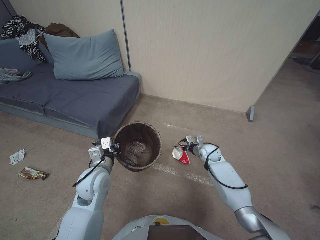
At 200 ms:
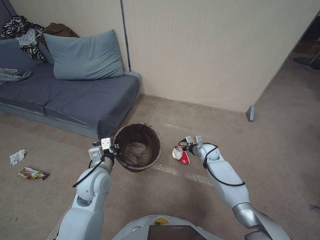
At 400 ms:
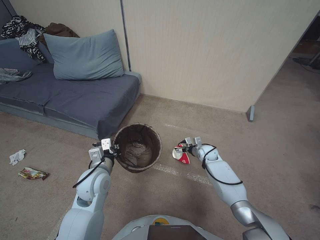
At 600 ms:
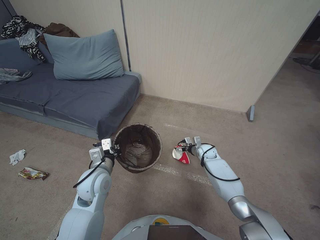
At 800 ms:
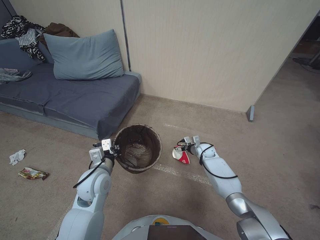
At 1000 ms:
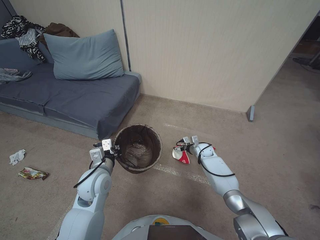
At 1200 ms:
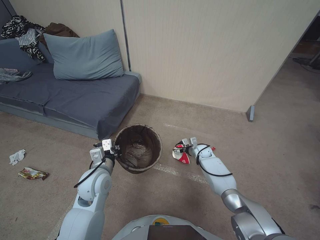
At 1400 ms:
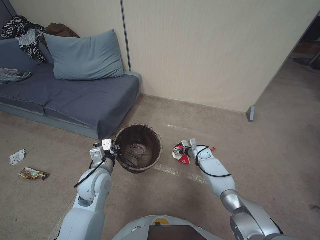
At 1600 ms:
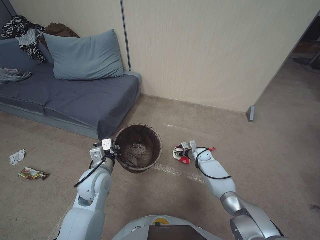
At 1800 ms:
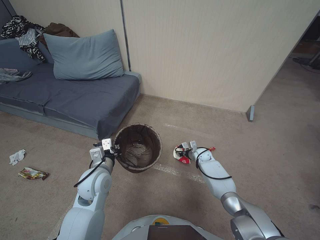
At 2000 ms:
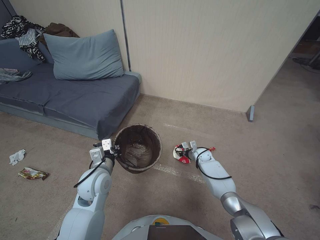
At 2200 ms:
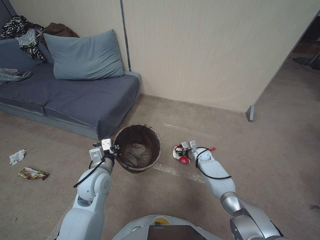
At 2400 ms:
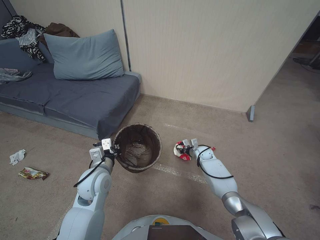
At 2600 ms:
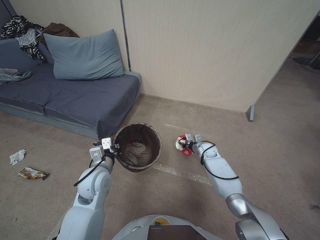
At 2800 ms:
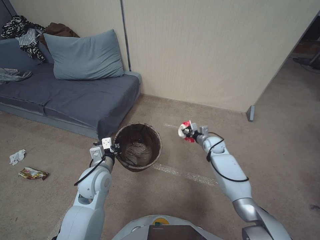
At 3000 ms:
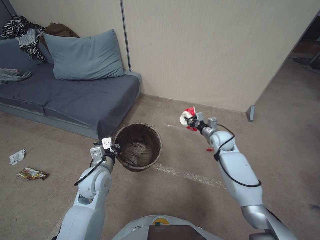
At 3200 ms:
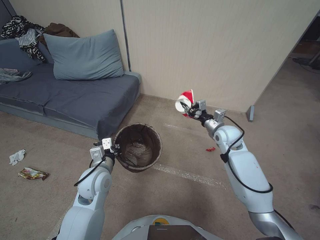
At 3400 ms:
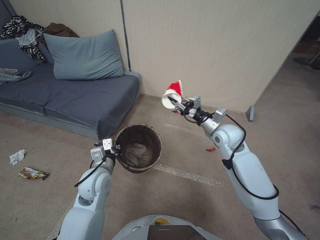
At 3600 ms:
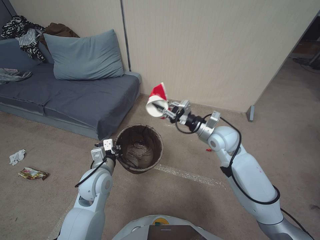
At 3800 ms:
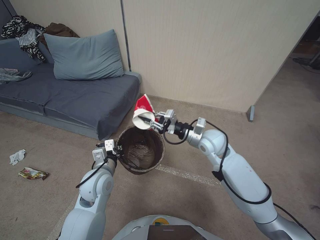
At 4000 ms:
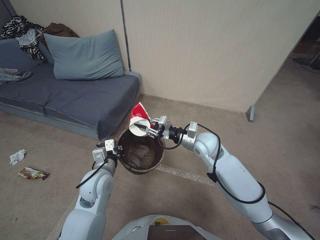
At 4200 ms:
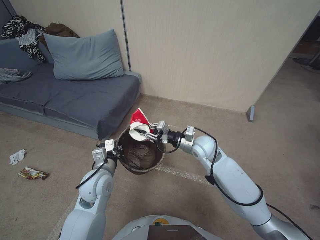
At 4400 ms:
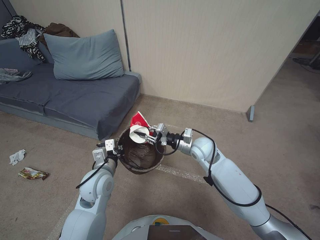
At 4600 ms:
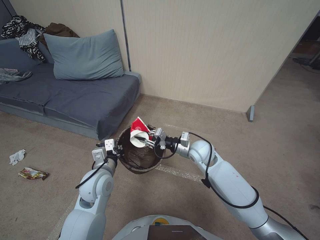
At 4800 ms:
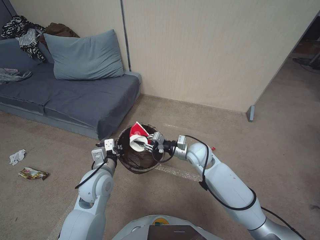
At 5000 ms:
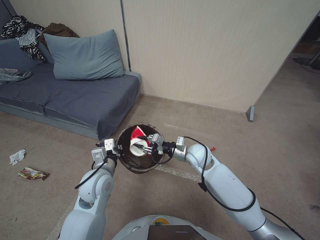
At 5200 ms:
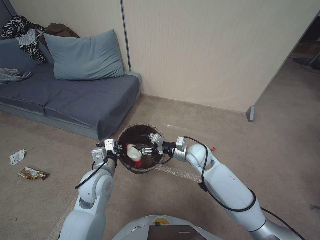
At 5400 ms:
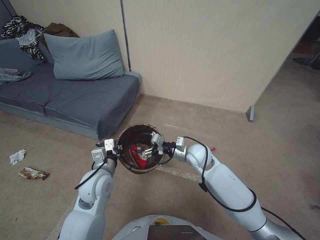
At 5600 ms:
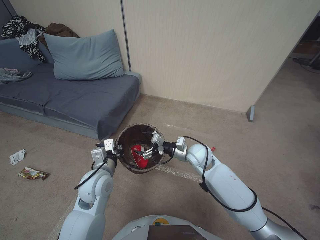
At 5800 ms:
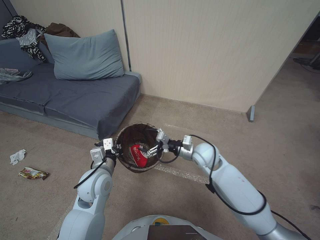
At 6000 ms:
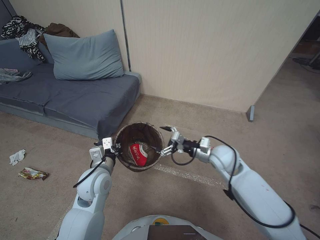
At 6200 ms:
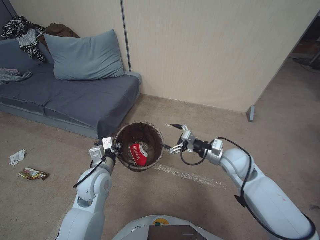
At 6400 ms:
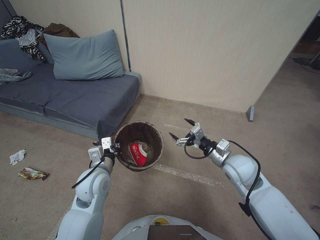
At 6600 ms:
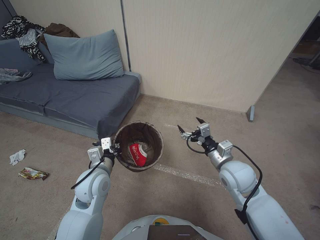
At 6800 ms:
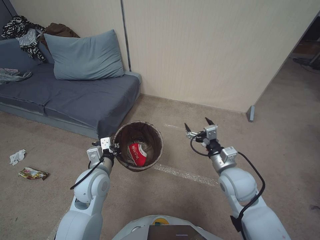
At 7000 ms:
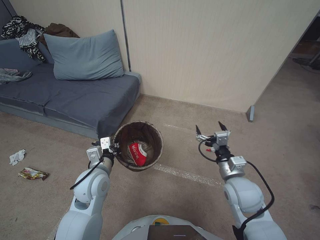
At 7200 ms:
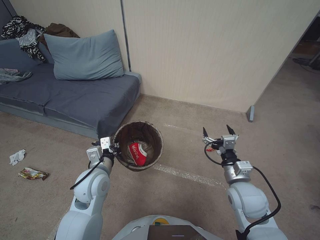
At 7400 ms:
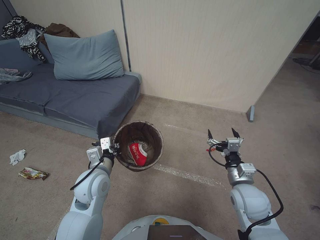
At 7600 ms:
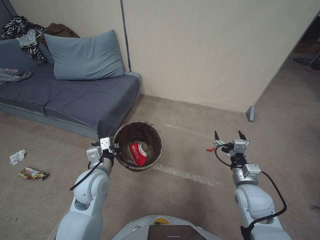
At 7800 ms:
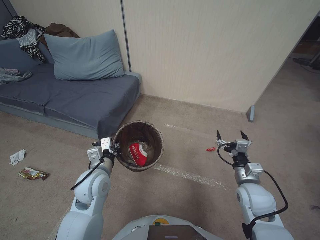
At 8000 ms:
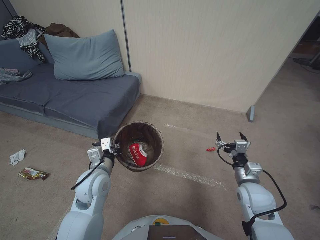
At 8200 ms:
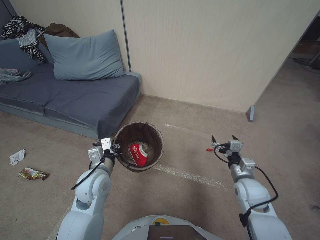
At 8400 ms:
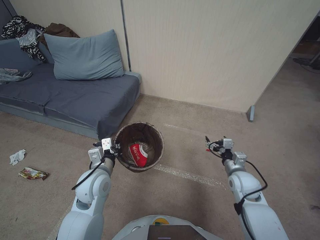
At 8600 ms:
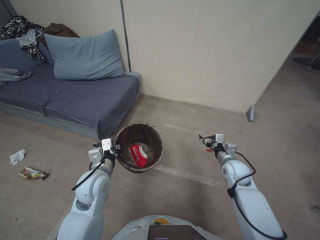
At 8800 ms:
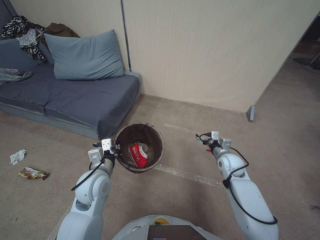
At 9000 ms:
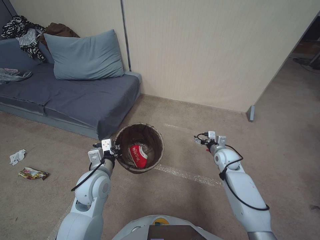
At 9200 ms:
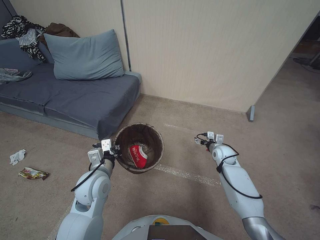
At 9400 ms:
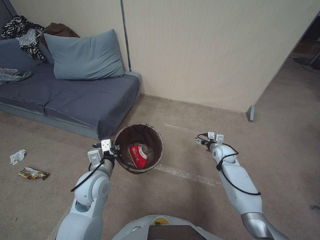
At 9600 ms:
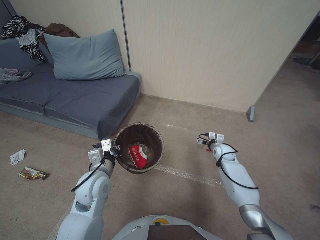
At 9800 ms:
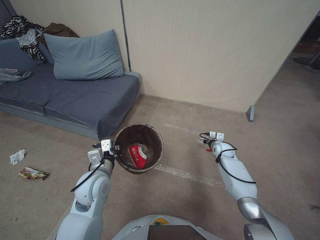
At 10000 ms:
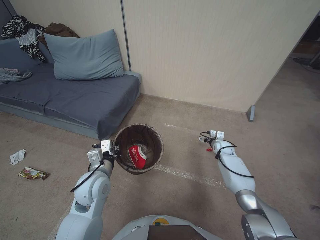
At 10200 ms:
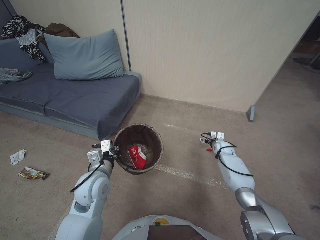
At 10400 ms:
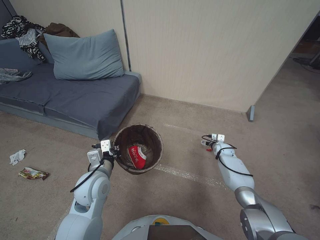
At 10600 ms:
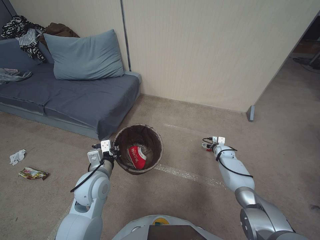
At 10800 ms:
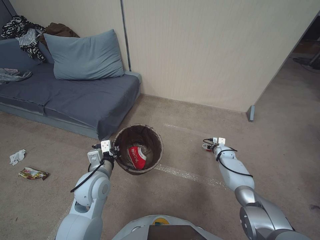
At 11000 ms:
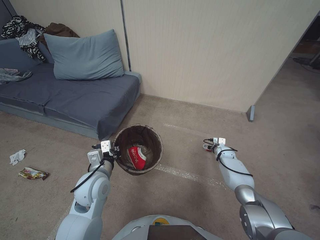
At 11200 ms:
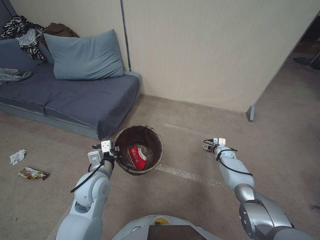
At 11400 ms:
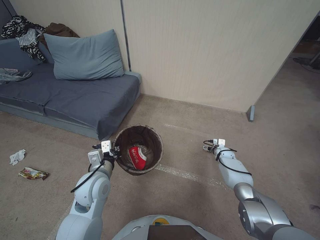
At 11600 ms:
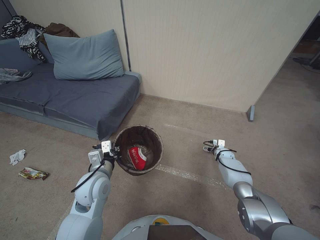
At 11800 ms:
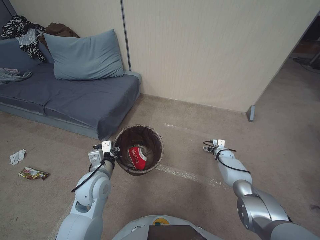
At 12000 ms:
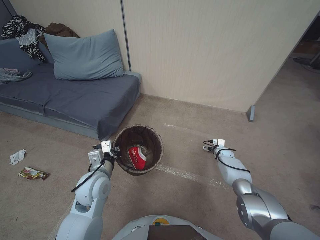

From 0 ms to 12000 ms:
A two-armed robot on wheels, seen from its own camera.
Task of the whole recording: Pick up the trash bin, then pick up the garbage from the floor and place it into the trash bin.
From 0 ms to 1600 ms: The right gripper heads downward and forward, covering some 10 cm.
From 1600 ms to 3000 ms: The right gripper is displaced upward by about 15 cm, and closes up.
From 3000 ms to 4400 ms: The right gripper moves to the left, backward and upward, roughly 15 cm.
From 4400 ms to 6000 ms: The right gripper opens.
From 6000 ms to 7600 ms: The right gripper travels backward and to the right by some 15 cm.
From 7600 ms to 9000 ms: The right gripper heads forward, covering approximately 15 cm.
From 9000 ms to 10400 ms: The right gripper shifts some 15 cm forward, downward and to the right.
From 10400 ms to 12000 ms: The right gripper shifts approximately 5 cm downward.

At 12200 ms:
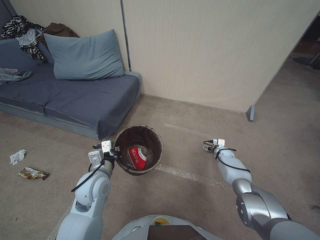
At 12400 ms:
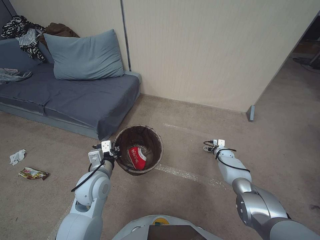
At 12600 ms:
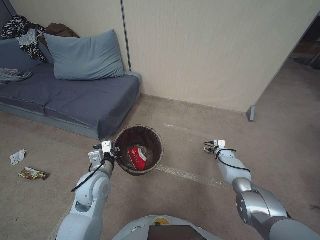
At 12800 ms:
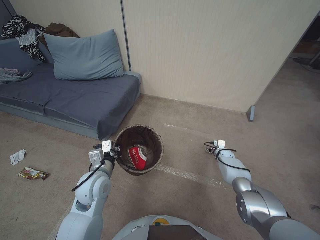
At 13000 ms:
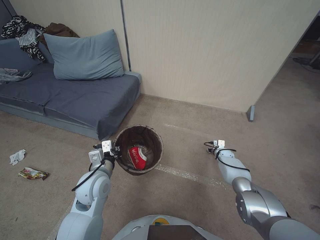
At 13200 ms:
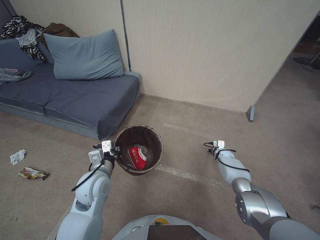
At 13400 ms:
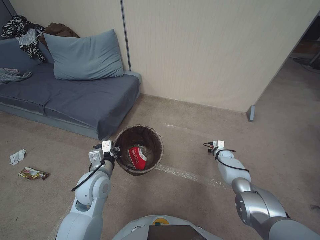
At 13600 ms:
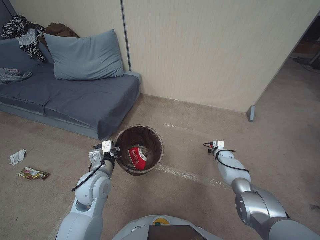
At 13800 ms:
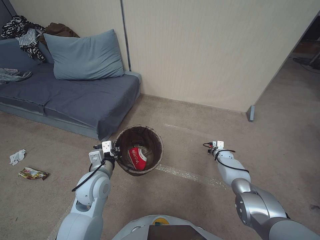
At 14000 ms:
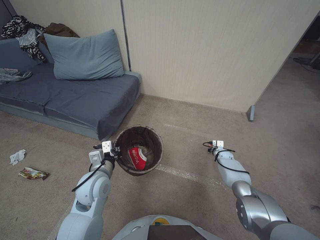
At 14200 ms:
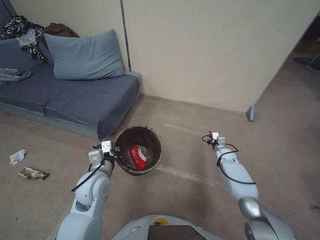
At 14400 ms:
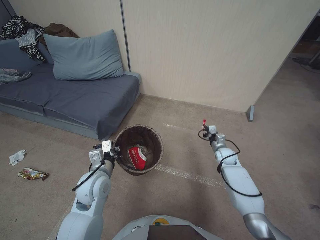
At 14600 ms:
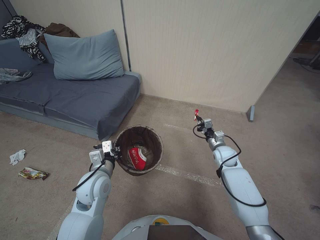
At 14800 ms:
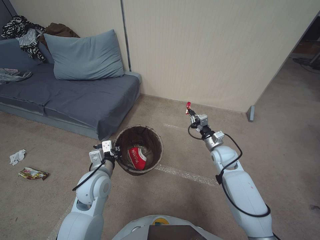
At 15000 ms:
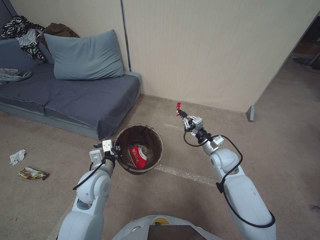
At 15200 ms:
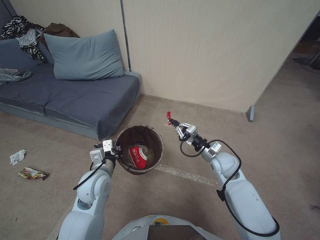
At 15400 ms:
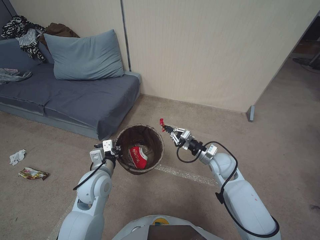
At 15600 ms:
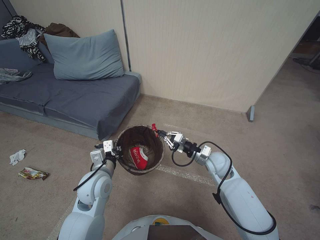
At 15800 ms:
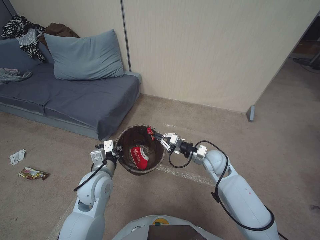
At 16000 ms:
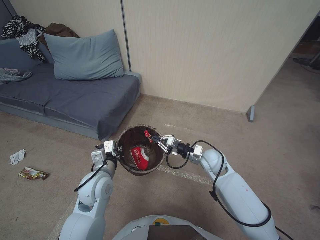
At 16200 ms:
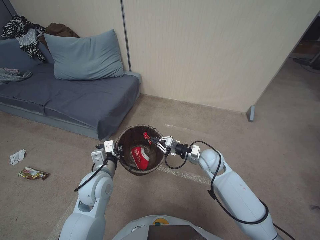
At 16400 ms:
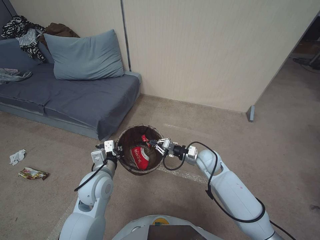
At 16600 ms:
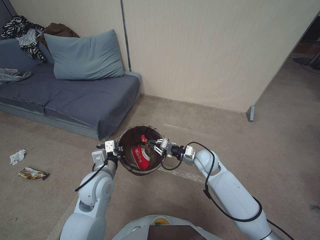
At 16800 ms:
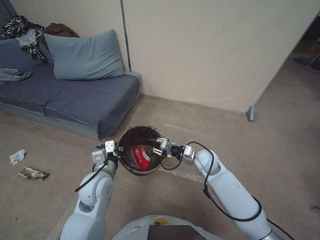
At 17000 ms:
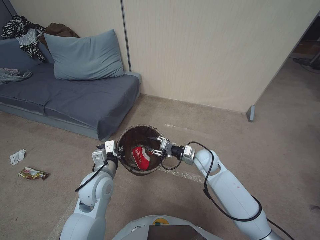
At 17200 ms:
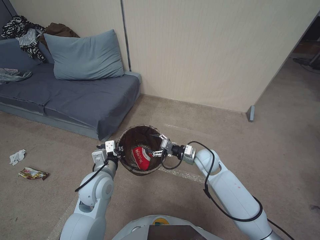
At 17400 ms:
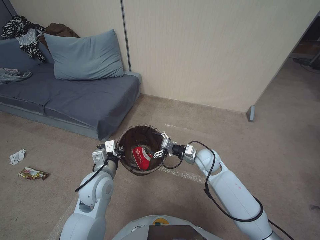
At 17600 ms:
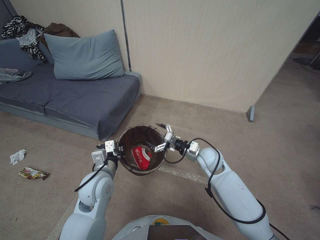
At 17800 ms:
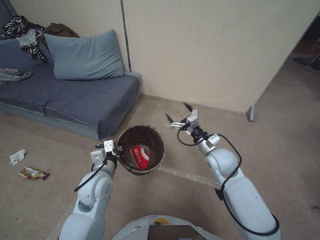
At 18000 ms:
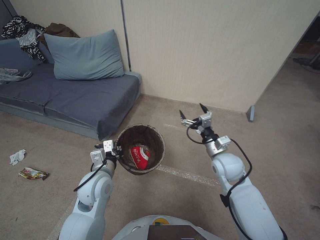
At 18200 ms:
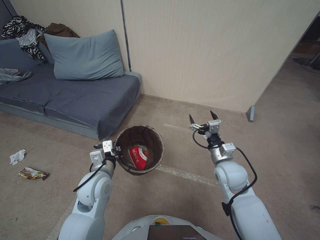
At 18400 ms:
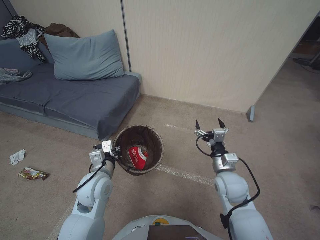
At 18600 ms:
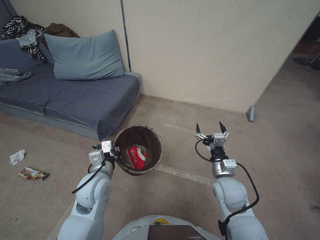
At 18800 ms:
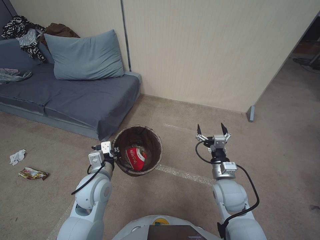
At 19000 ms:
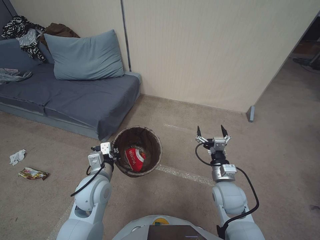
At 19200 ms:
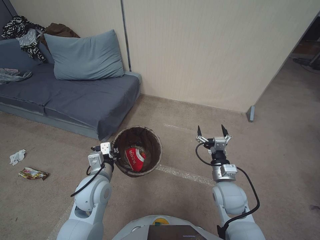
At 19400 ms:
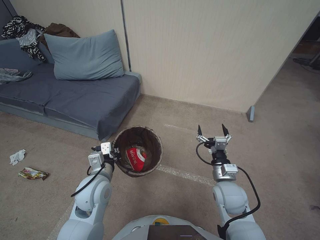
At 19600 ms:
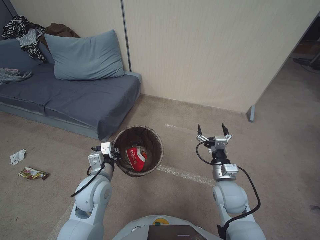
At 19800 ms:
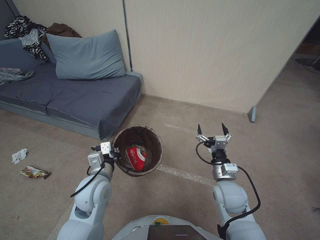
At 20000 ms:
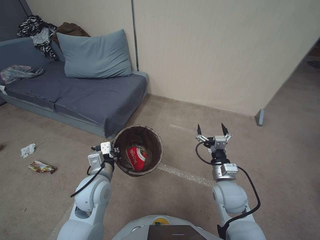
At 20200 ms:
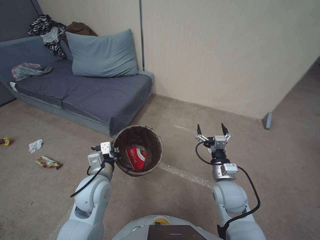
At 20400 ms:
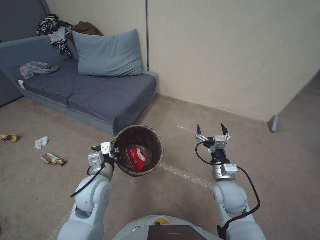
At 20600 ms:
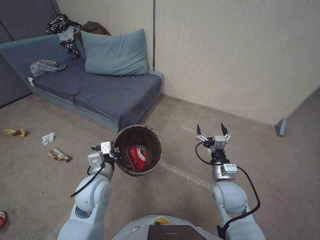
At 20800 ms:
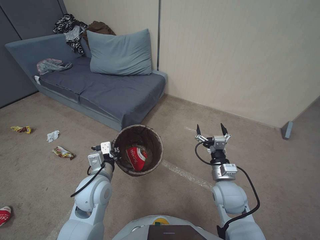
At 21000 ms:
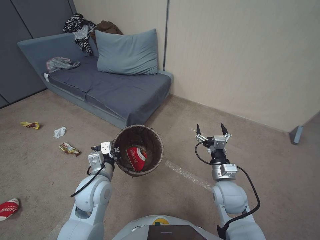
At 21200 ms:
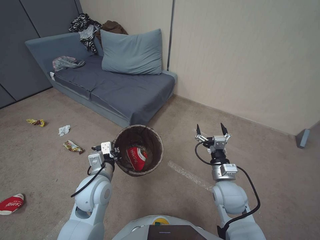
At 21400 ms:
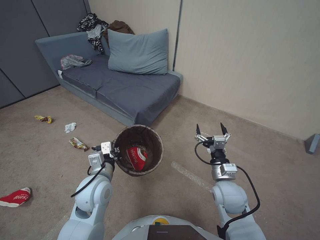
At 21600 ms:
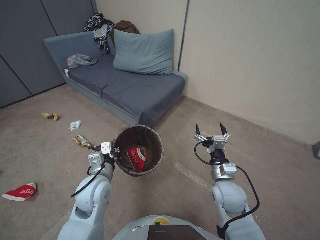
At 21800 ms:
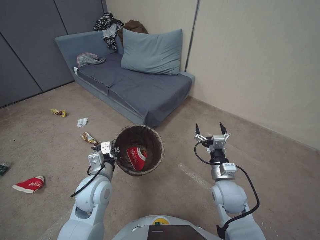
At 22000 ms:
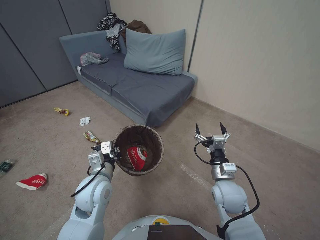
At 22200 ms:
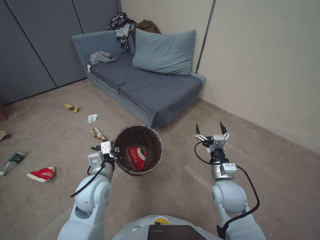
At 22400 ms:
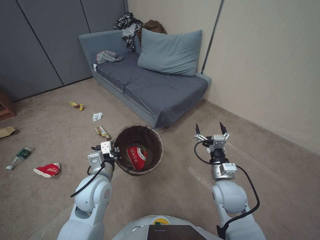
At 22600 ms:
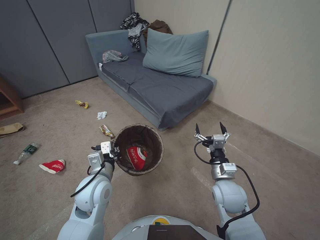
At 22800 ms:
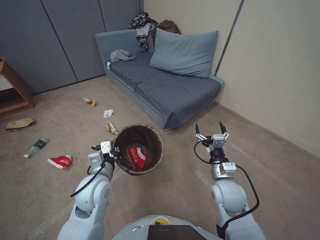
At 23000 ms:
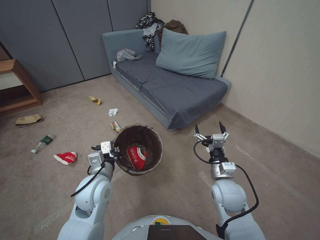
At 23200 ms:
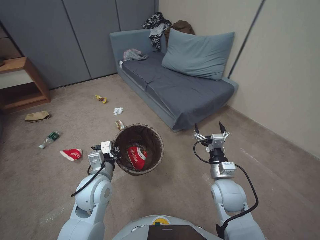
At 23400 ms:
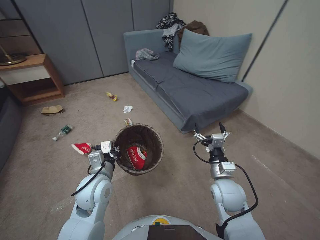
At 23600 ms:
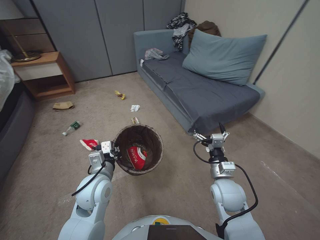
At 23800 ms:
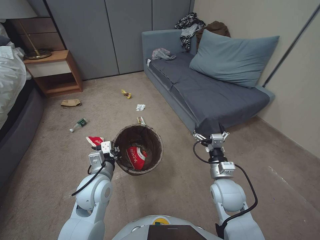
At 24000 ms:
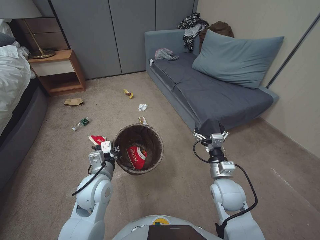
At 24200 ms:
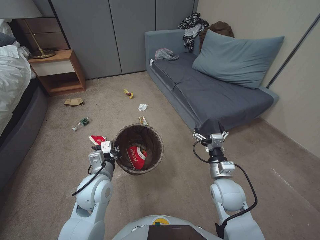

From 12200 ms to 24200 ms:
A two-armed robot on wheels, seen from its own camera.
Task of the whole recording: Pick up the trash bin, then pick up the garbage from the floor and place it into the trash bin.
From 12200 ms to 13800 ms: The right gripper closes its fingers.
From 13800 ms to 15200 ms: The right gripper is displaced upward, to the left and backward by some 30 cm.
From 15200 ms to 16600 ms: The right gripper moves approximately 5 cm.
From 16600 ms to 18200 ms: The right gripper travels backward by about 5 cm, and opens its fingers.
From 18200 ms to 19800 ms: The right gripper heads backward, covering roughly 5 cm.
